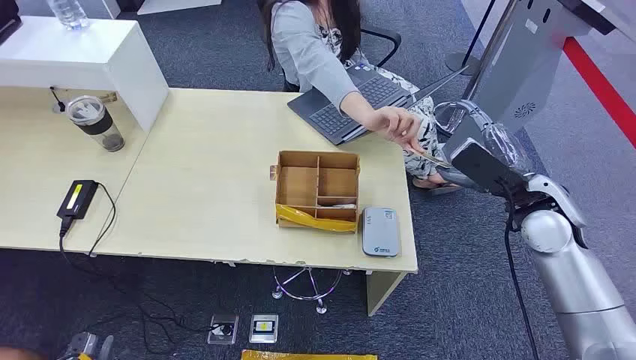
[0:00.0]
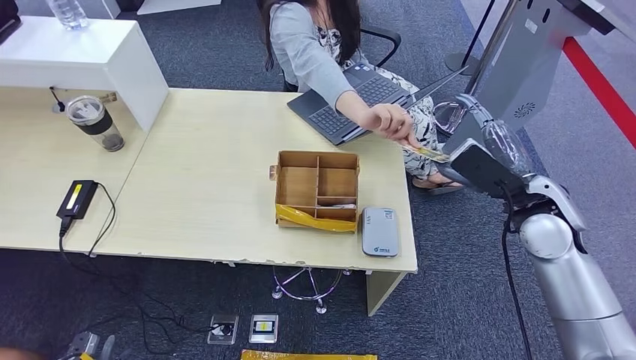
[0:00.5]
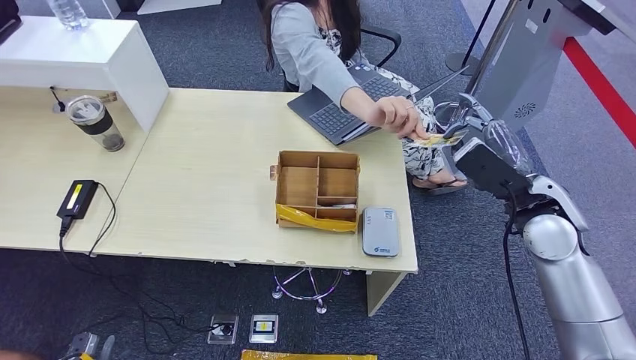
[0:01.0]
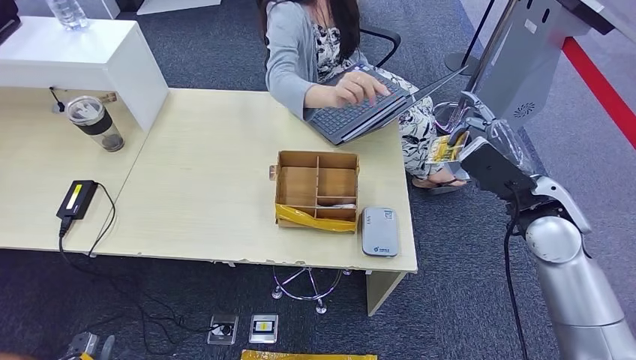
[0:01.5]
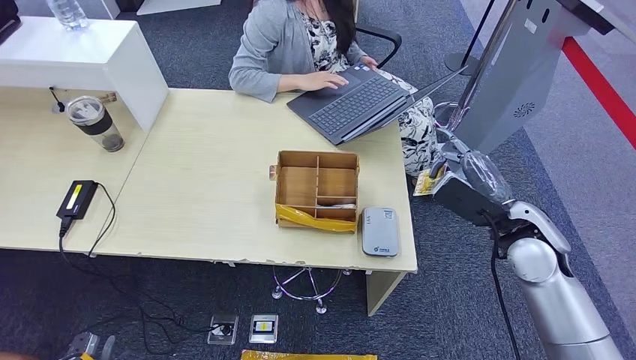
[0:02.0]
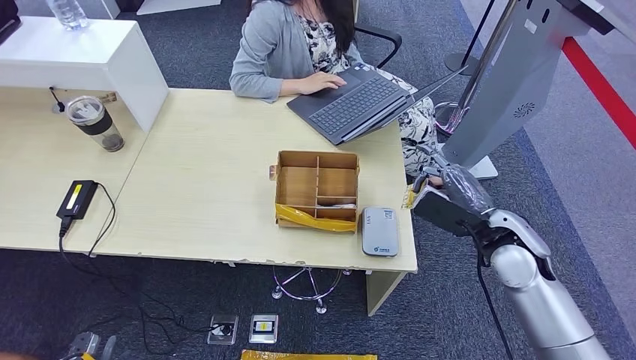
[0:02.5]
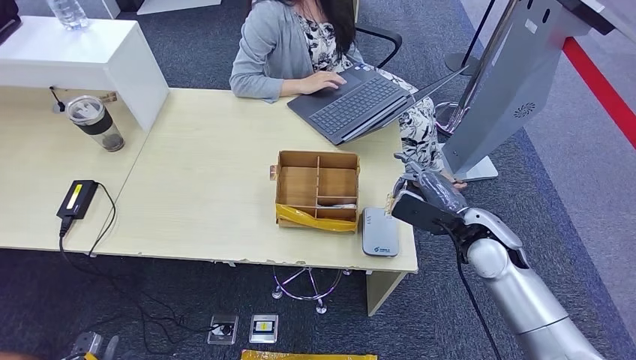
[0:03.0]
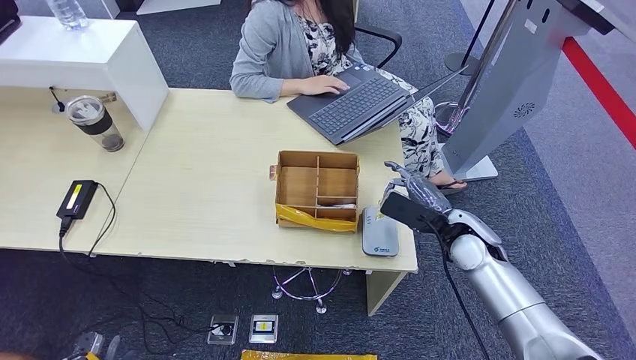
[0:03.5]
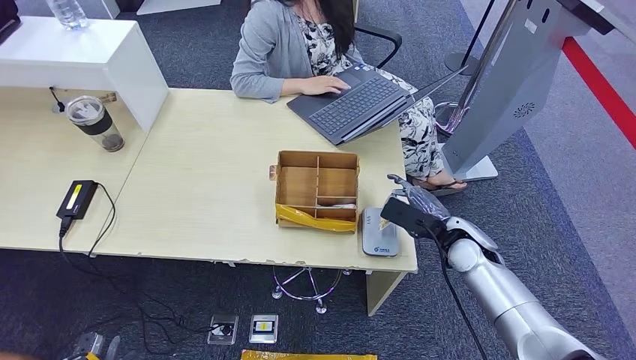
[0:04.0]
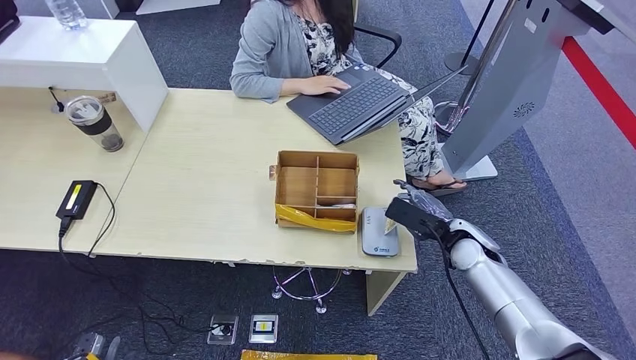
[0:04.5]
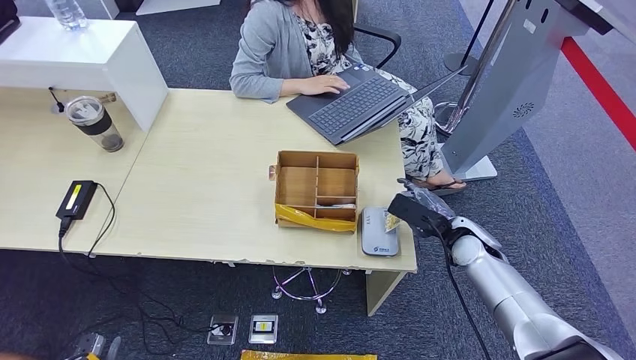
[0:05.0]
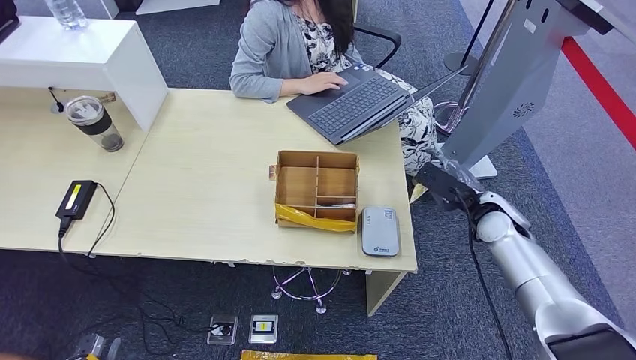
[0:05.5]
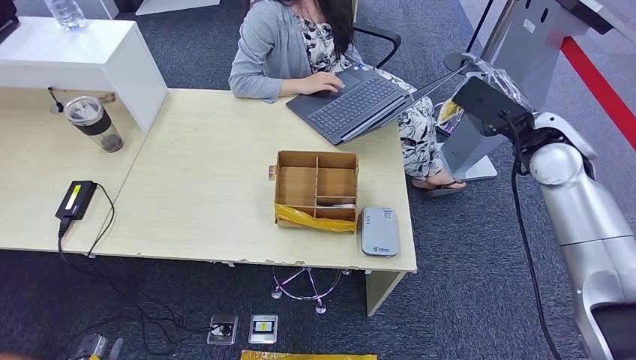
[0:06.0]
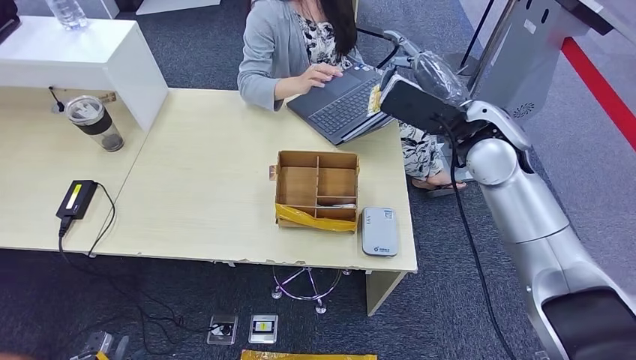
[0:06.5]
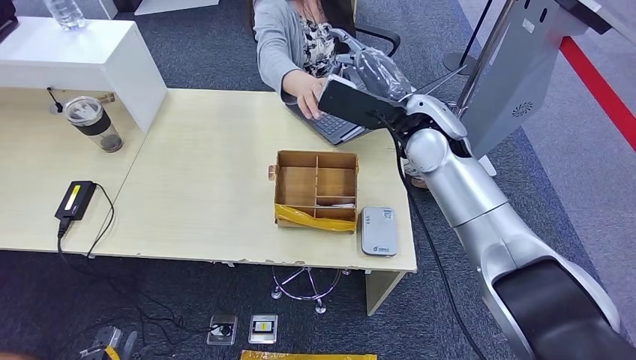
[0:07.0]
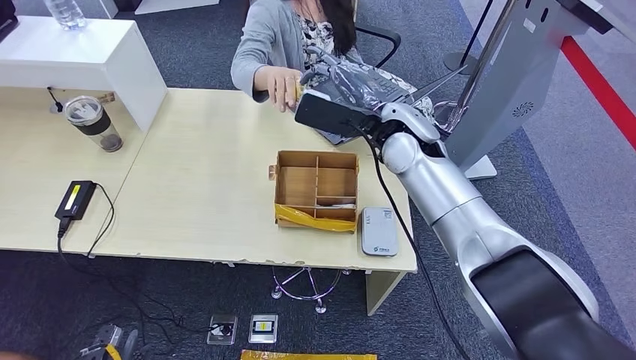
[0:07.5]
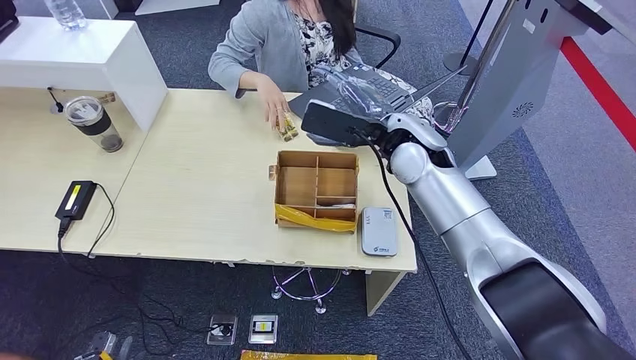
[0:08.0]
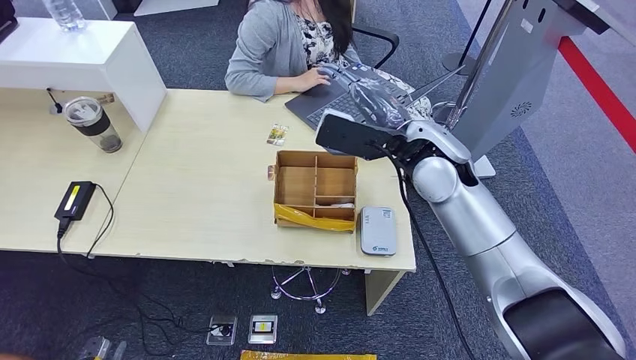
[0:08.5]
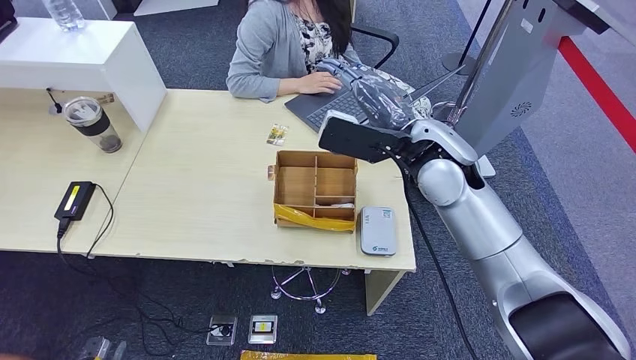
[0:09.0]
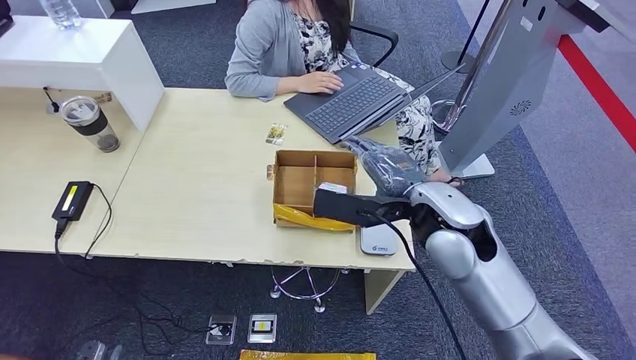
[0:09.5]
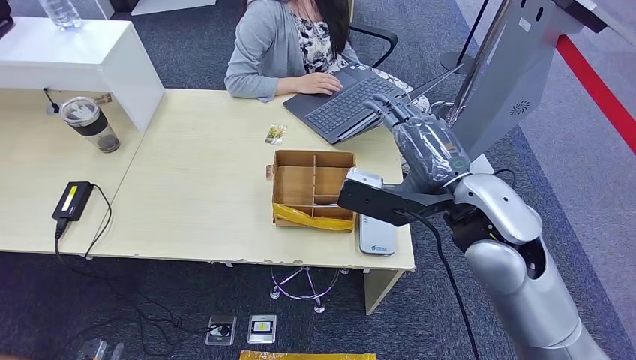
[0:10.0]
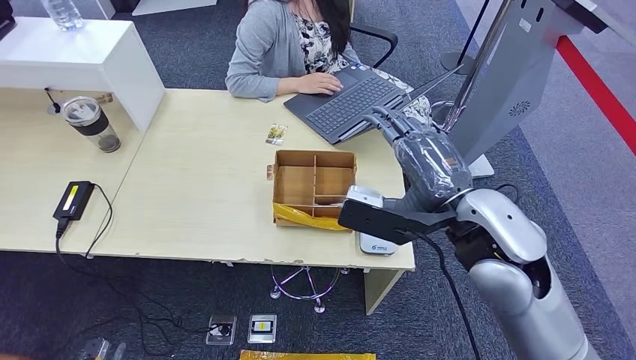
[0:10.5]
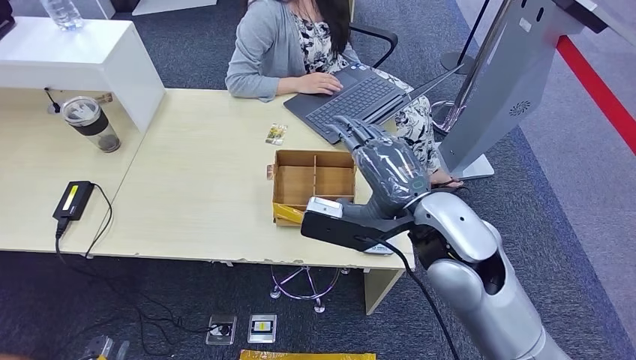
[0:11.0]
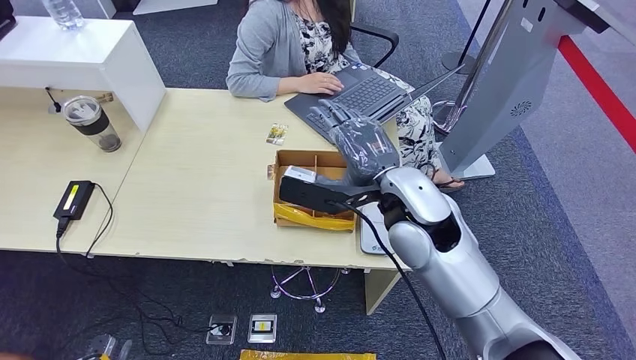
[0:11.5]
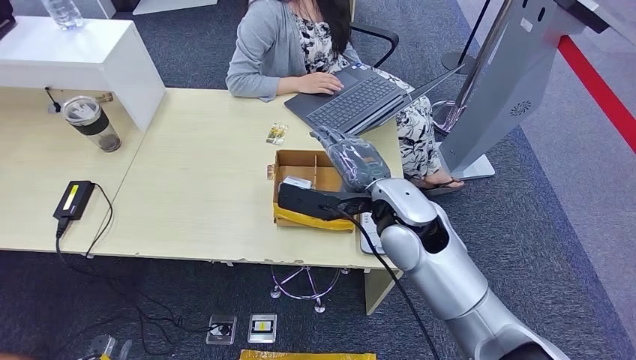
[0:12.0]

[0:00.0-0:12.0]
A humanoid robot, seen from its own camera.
Step, 0:00.0 to 0:02.0: Take the ID card from the person's hand.
Step, 0:02.5 to 0:06.0: Place the ID card on the card reader.
Step, 0:06.5 to 0:08.0: Hand the ID card to the person.
0:02.0 to 0:04.0: The right hand is displaced downward by roughly 10 cm.
0:04.0 to 0:06.0: The right hand shifts roughly 20 cm upward.
0:10.0 to 0:12.0: The right hand moves to the left and downward, approximately 10 cm.

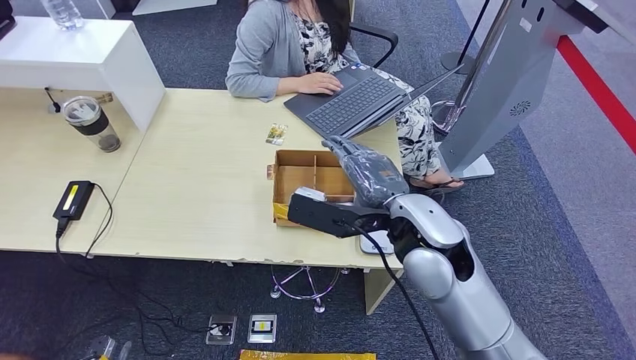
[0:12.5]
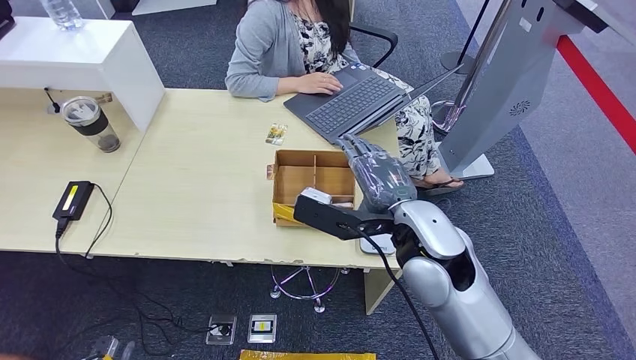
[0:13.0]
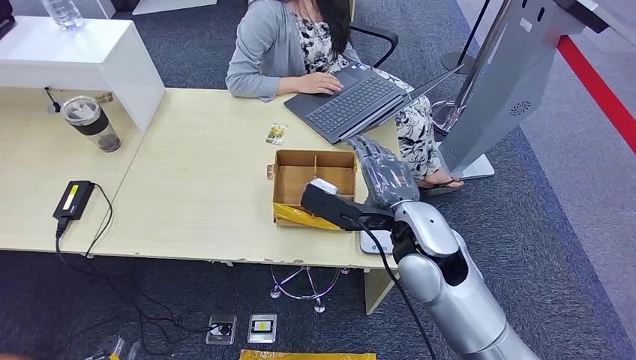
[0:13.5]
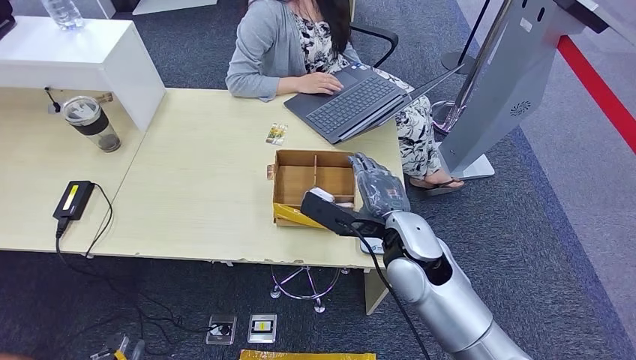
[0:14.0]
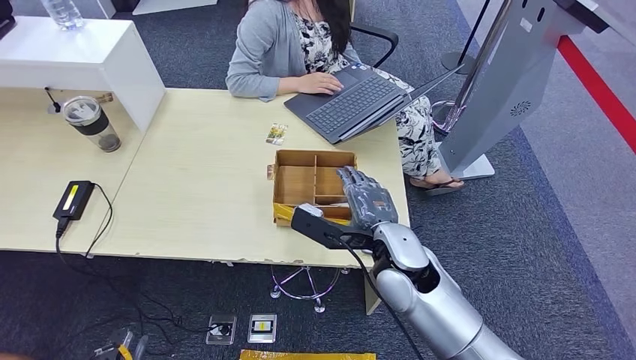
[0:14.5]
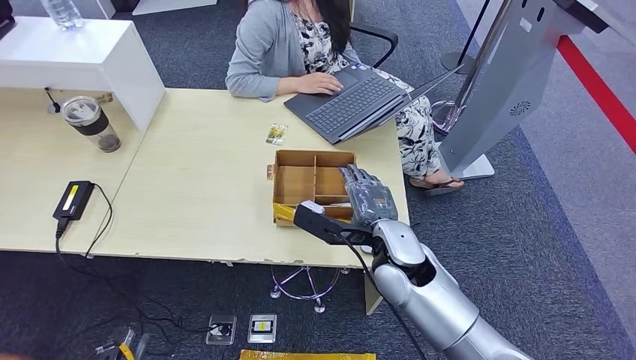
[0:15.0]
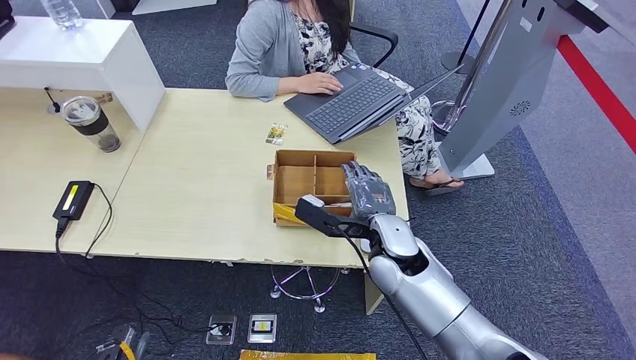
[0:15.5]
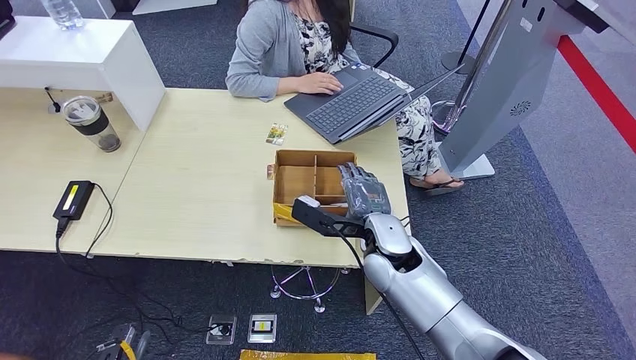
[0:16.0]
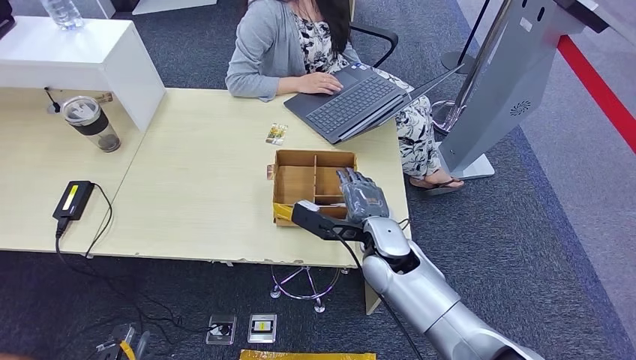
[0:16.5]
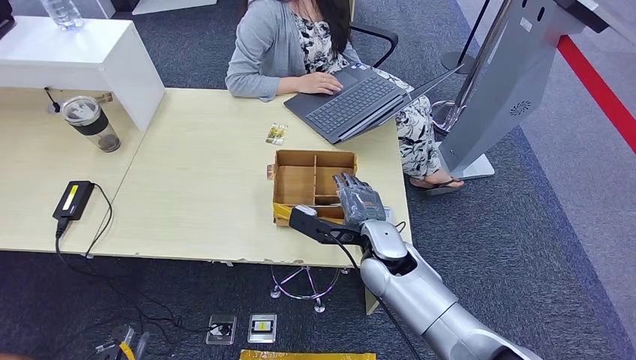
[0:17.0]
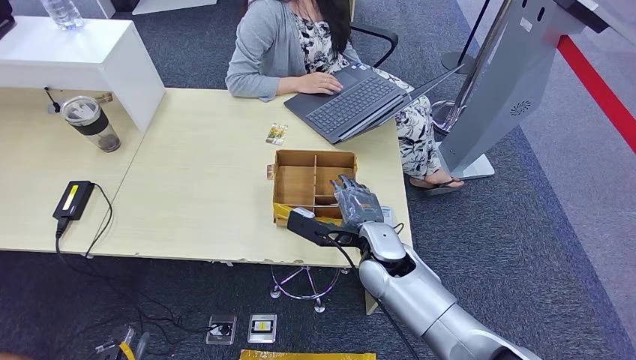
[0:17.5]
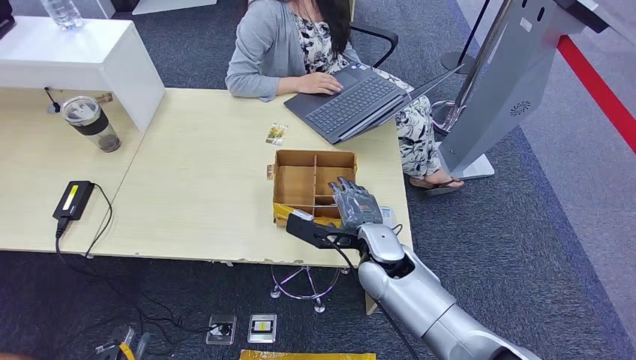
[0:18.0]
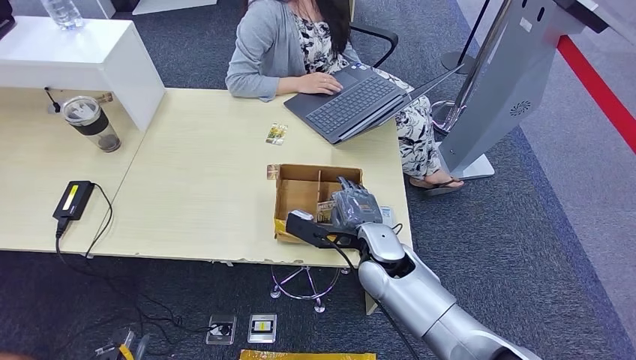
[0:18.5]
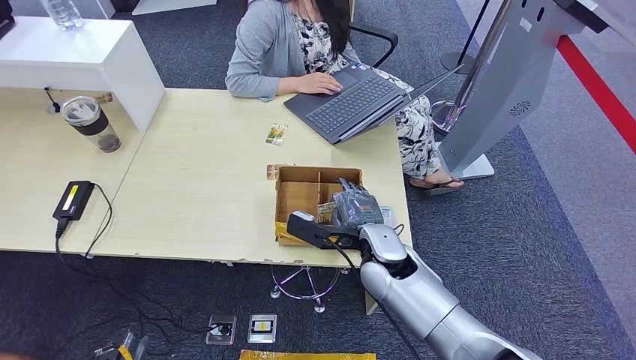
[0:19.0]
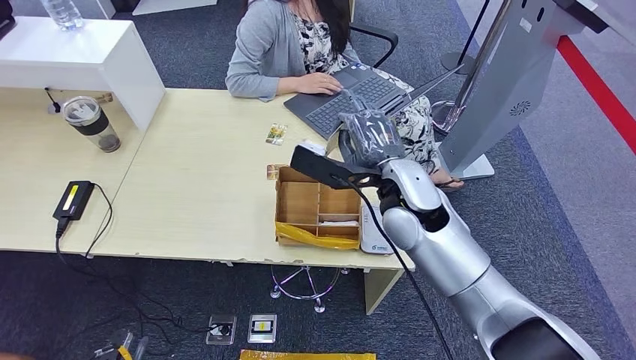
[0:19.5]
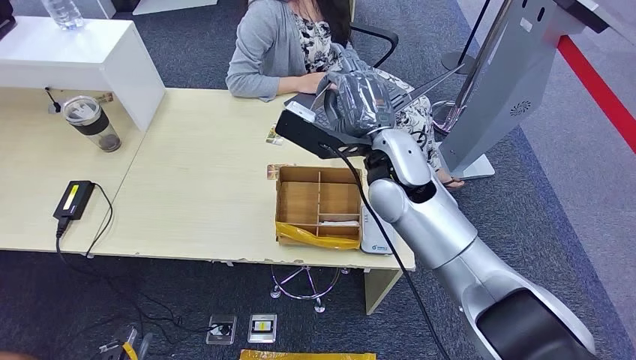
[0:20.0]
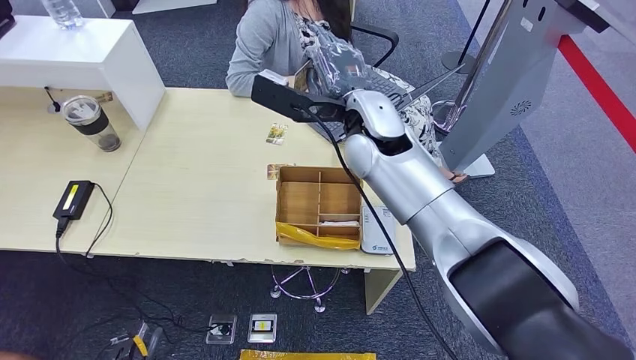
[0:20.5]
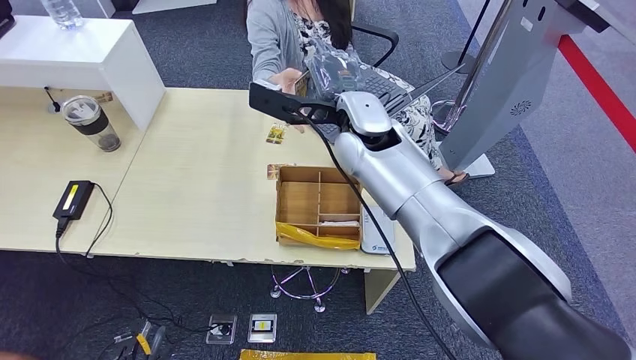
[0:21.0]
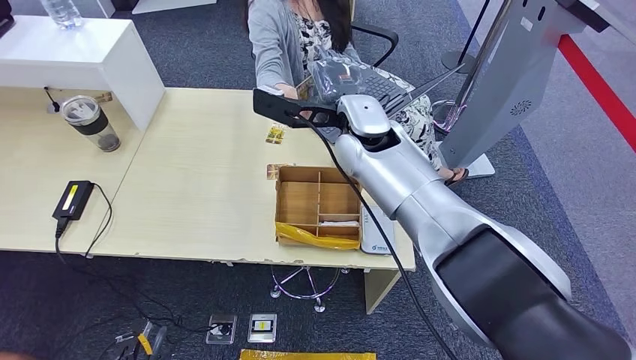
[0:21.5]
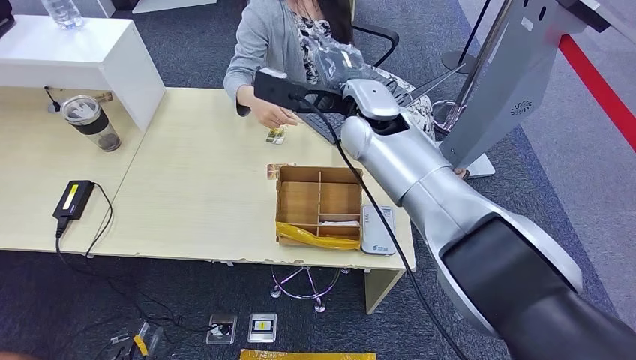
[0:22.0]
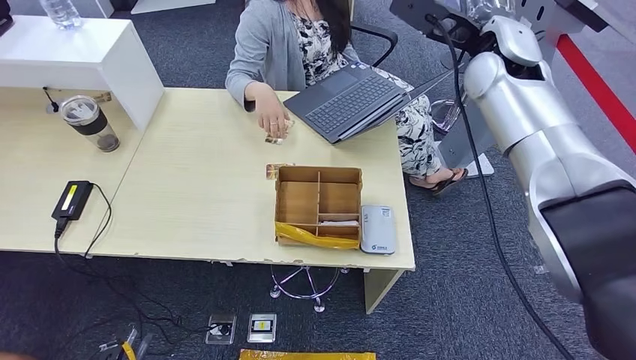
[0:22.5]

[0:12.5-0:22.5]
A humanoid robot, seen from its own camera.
Step, 0:12.5 to 0:19.5: Pick up the room key from the key card box.
Step, 0:20.5 to 0:22.5: Hand the room key to the person.
0:12.5 to 0:14.5: The right hand heads downward, covering about 10 cm.
0:14.5 to 0:16.5: The right hand ends up about 5 cm from where it was.
0:16.5 to 0:18.5: The two hands keep their place.
0:18.5 to 0:20.5: The right hand heads upward and forward, covering roughly 20 cm.
